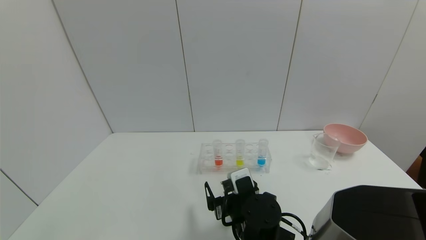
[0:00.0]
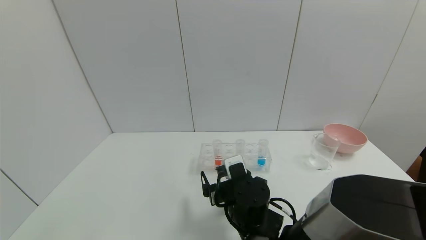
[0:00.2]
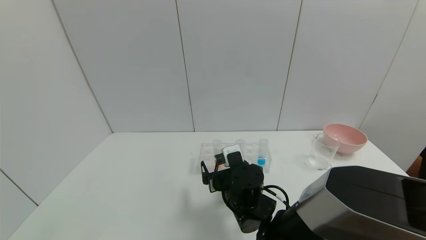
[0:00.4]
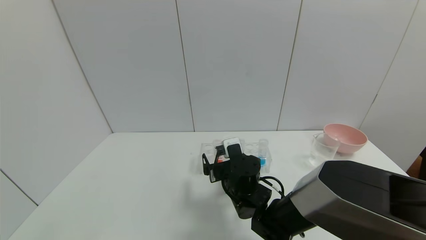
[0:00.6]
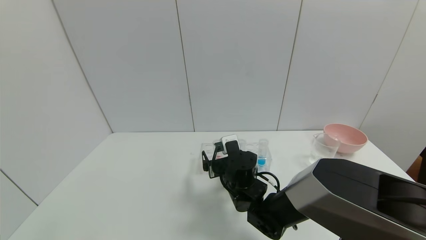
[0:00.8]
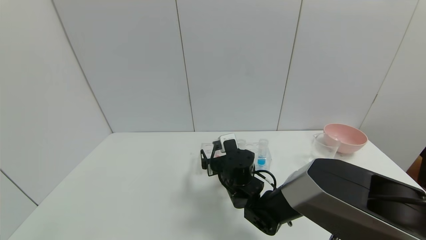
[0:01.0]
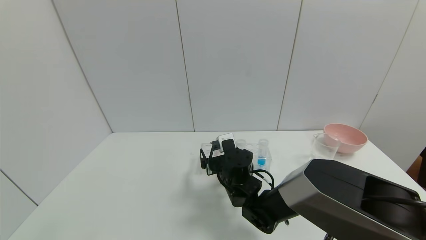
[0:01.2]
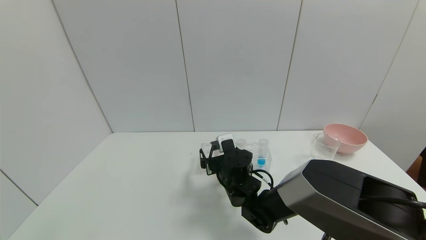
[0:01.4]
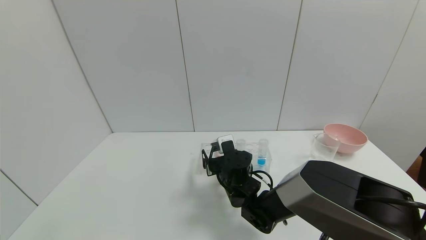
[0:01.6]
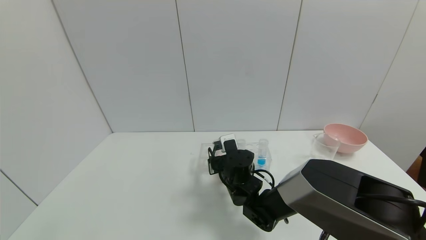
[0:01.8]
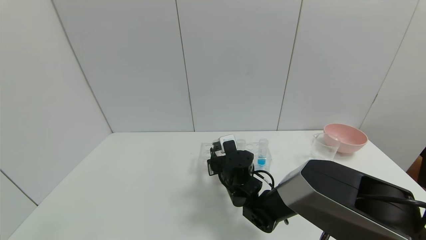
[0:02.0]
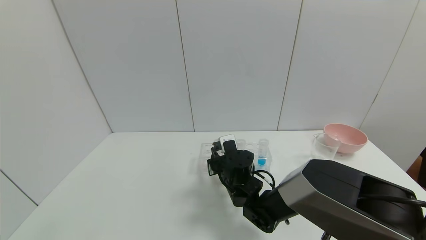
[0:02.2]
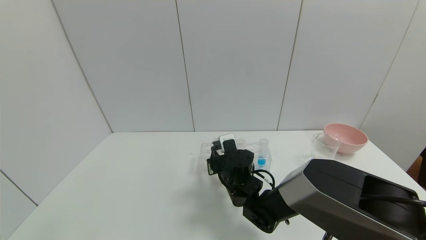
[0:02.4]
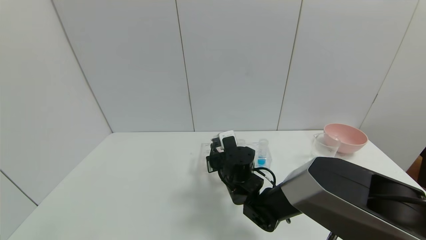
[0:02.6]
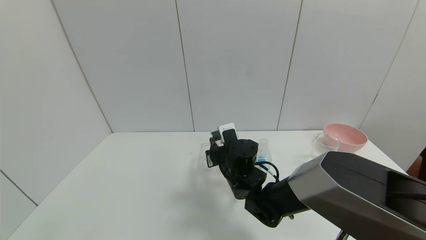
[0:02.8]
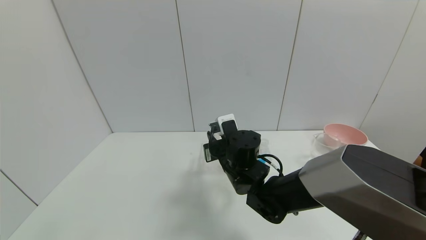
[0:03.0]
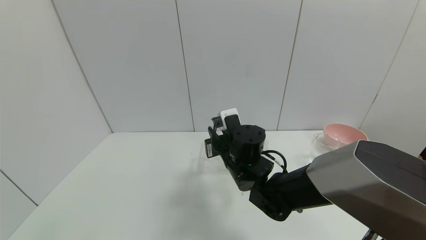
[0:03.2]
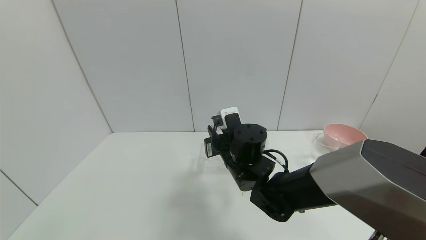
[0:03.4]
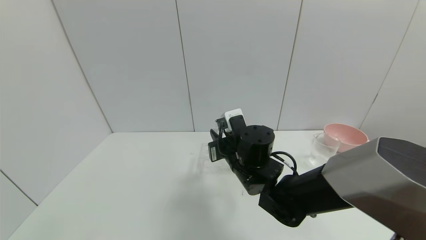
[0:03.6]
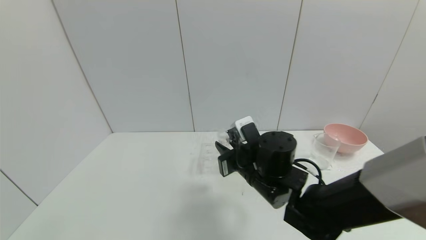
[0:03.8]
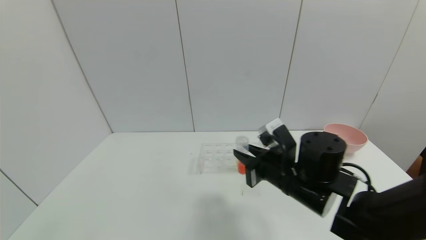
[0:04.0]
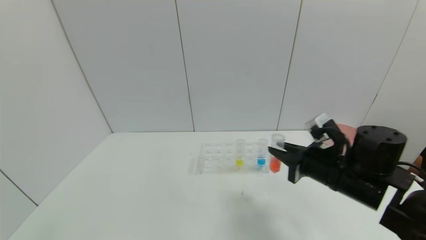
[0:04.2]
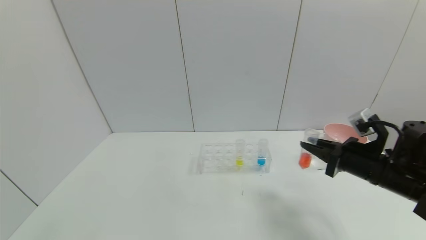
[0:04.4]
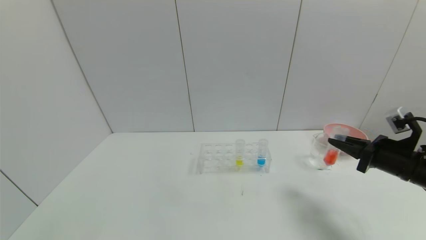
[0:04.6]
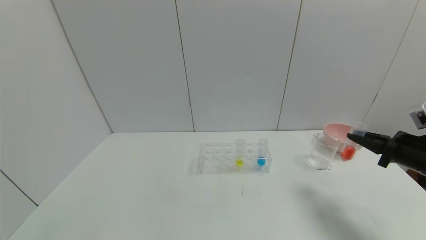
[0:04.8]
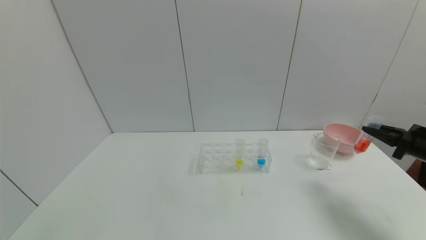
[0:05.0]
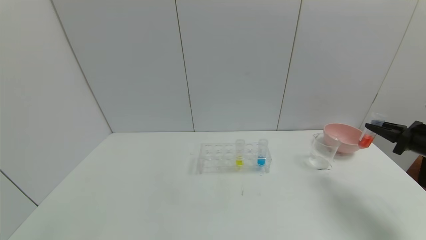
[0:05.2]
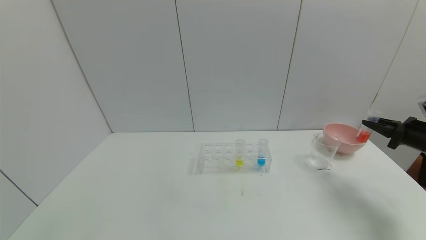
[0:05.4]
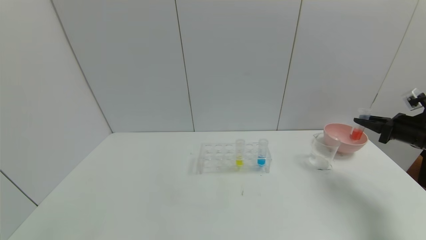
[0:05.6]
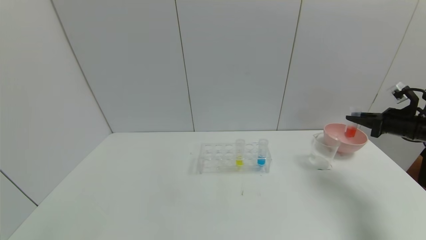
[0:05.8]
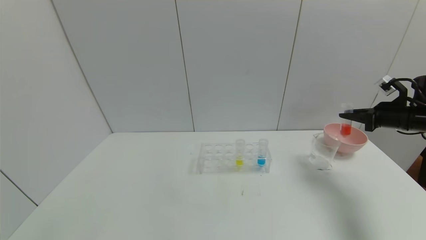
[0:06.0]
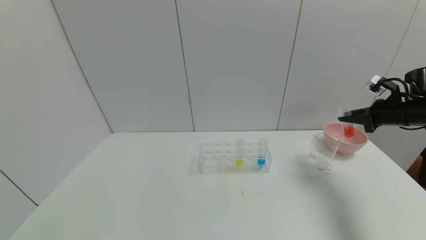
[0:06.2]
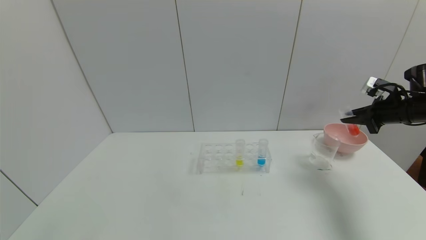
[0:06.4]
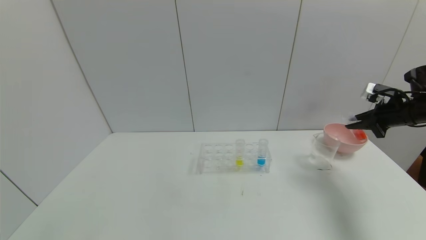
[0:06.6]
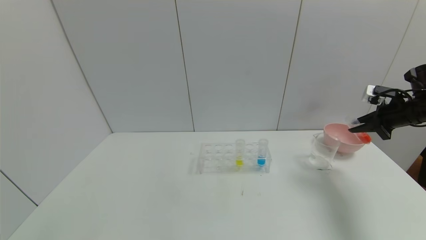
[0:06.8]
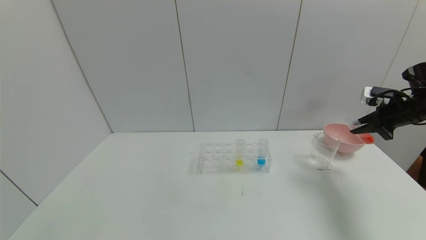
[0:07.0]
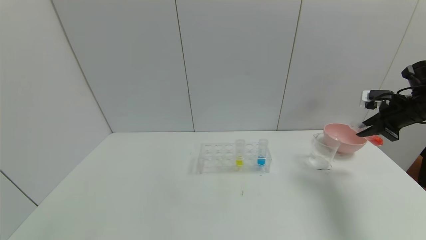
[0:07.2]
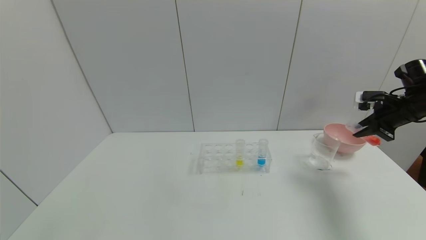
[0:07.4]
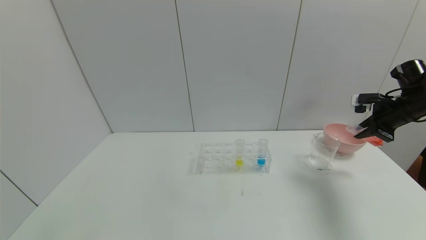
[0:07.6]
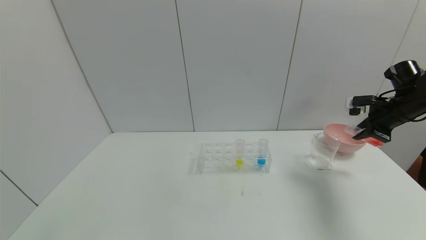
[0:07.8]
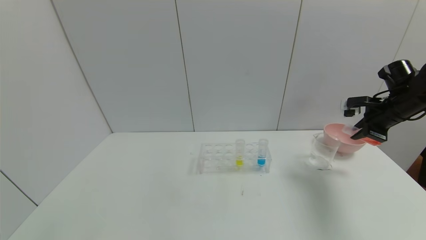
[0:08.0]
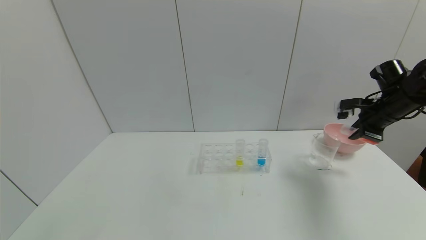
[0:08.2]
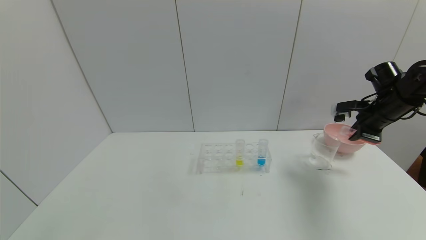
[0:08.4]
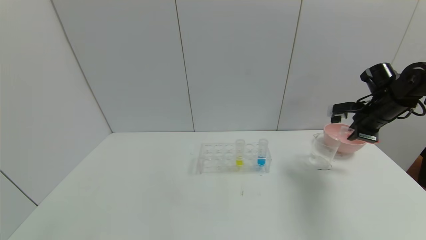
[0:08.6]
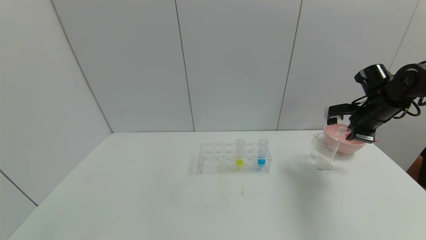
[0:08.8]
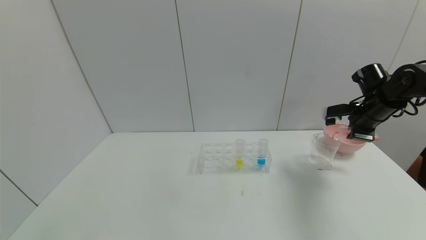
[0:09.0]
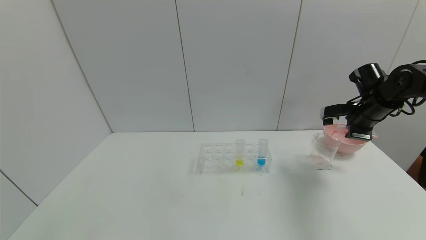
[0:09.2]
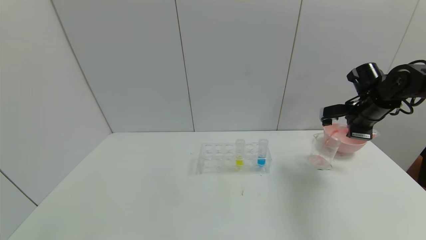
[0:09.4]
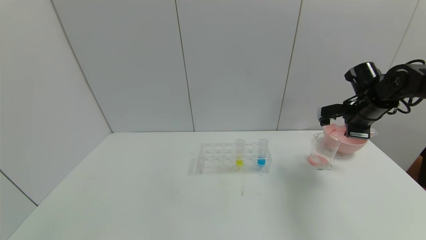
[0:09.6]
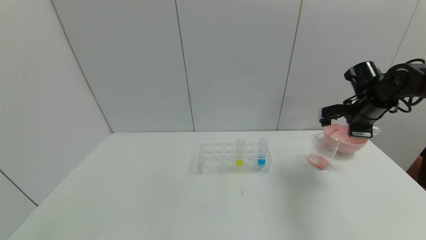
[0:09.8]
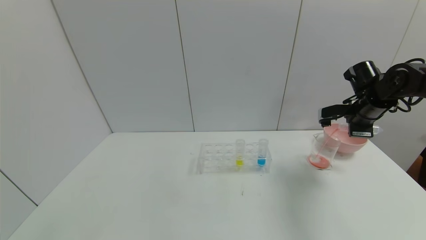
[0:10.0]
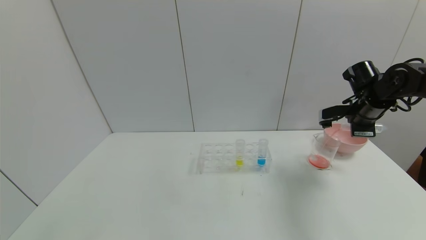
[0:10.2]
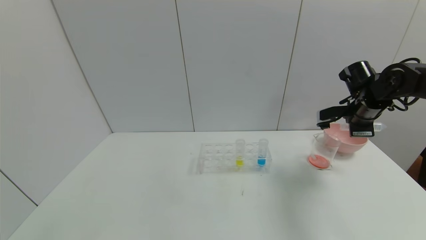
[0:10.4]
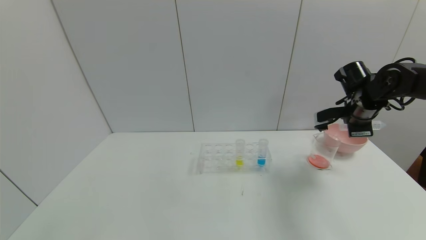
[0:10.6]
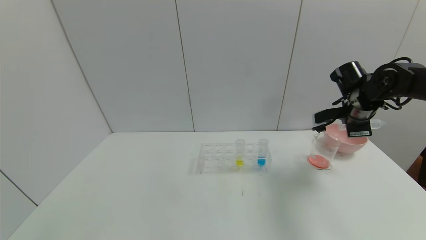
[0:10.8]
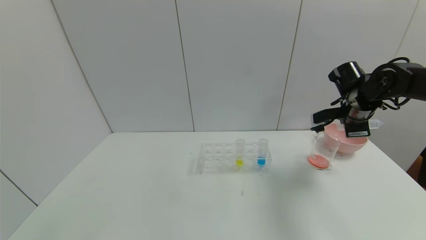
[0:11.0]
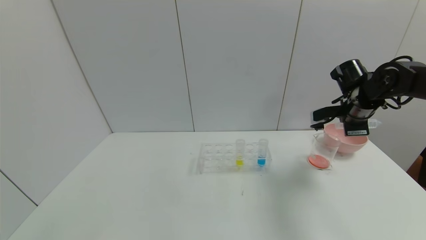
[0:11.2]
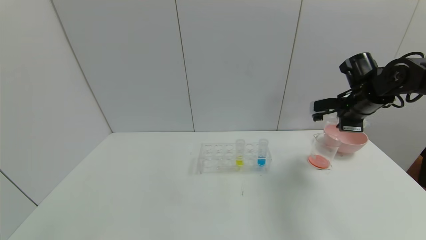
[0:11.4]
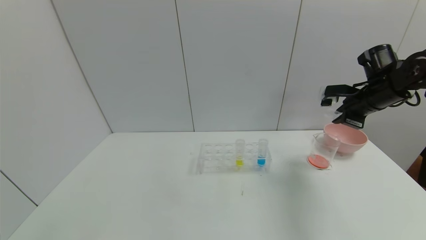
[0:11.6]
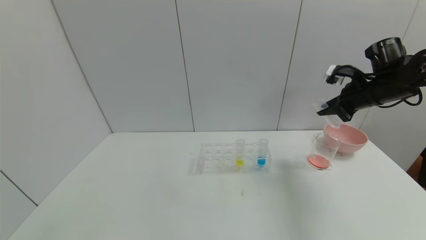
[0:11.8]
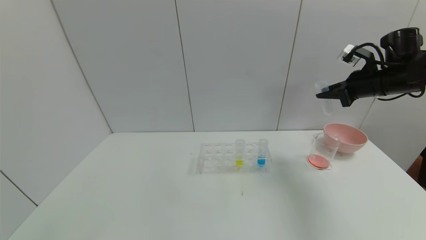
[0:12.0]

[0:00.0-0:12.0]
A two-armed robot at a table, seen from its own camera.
Task of the whole recording: pick up the test tube with red pigment and the test tube with blue pigment by grippers and pour them into the container.
Step, 0:00.0 to 0:05.8: Pick up the test tube containing the red reagent with right gripper.
Step, 0:06.0 to 0:11.6: Pour the red reagent into the graduated cylinder with right gripper.
0:00.0 to 0:01.6: The right gripper shifts about 10 cm forward.
0:01.6 to 0:03.0: The right gripper goes some 5 cm upward, and closes up.
0:03.0 to 0:04.4: The right gripper travels to the right by some 30 cm.
0:04.4 to 0:06.0: The right gripper is displaced to the right and forward by some 20 cm.
0:07.6 to 0:09.0: The right gripper shifts roughly 5 cm to the left.
0:09.0 to 0:10.4: The grippers move only a little.
0:10.4 to 0:12.0: The right gripper is displaced upward by roughly 5 cm.

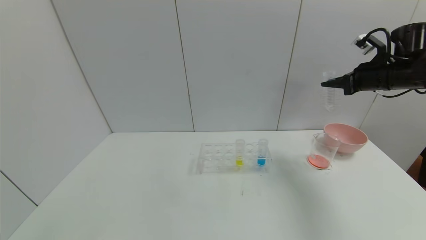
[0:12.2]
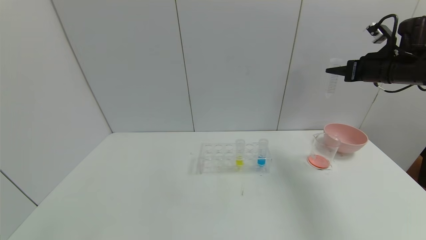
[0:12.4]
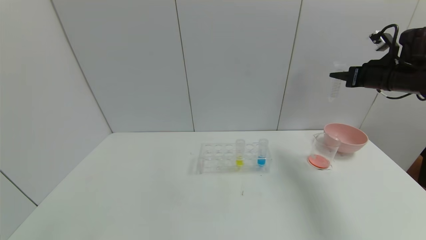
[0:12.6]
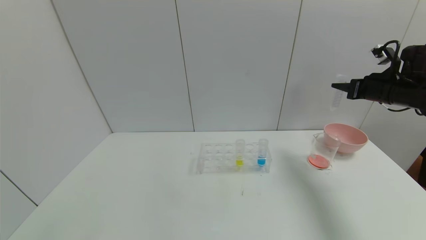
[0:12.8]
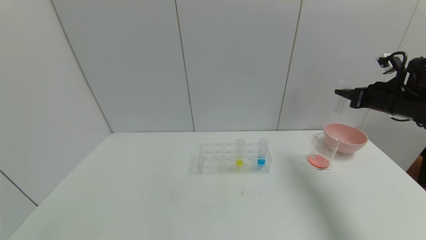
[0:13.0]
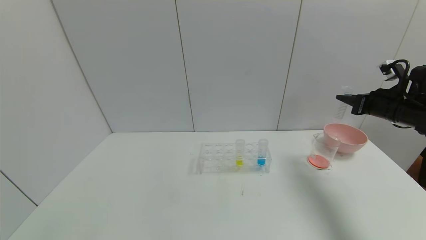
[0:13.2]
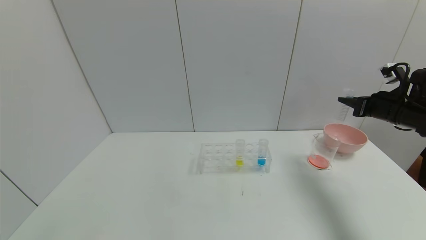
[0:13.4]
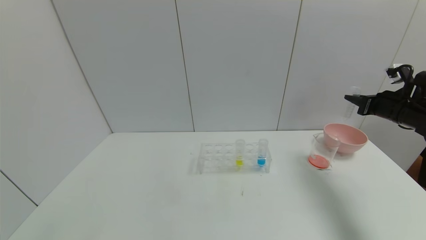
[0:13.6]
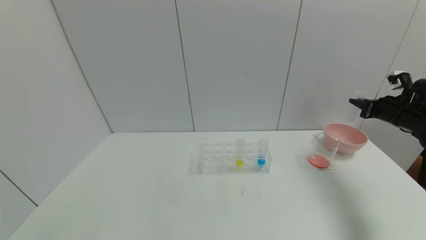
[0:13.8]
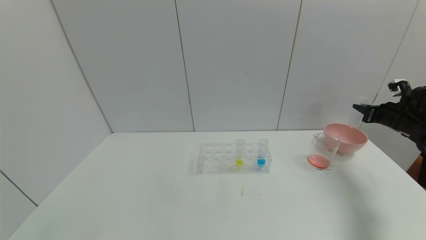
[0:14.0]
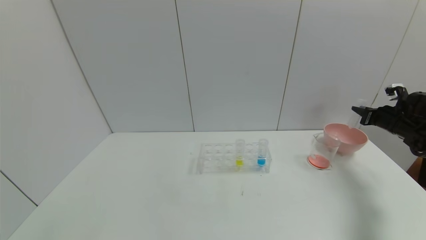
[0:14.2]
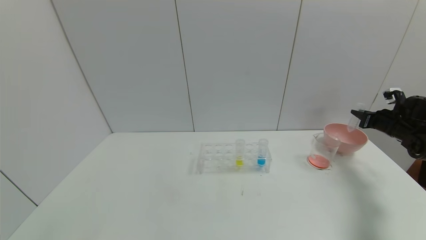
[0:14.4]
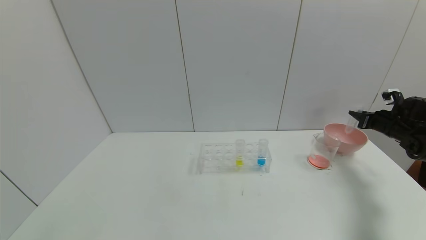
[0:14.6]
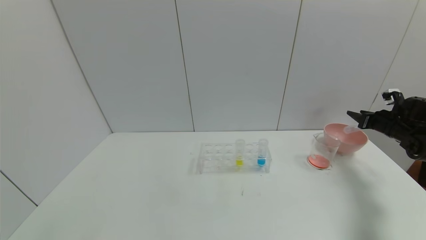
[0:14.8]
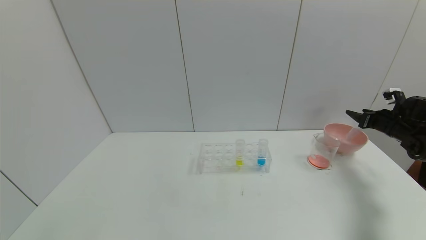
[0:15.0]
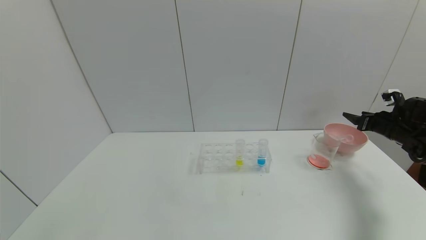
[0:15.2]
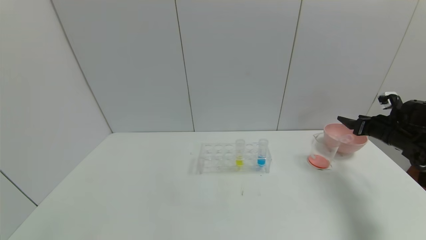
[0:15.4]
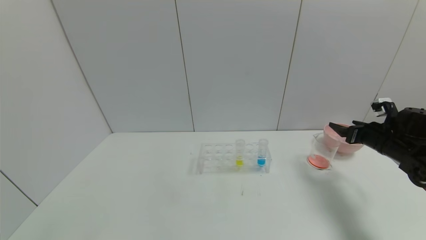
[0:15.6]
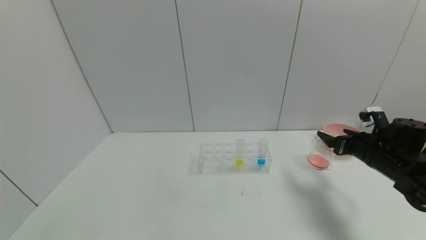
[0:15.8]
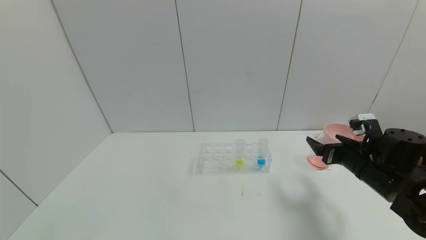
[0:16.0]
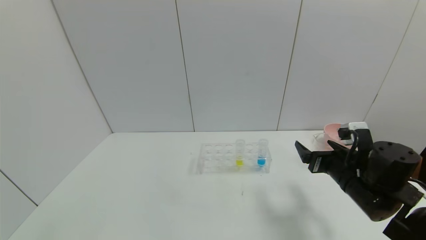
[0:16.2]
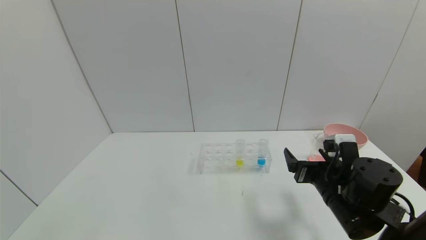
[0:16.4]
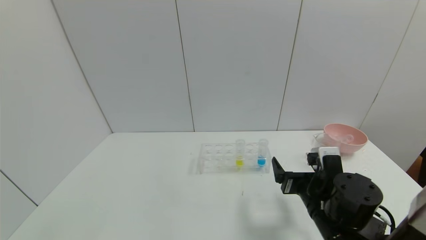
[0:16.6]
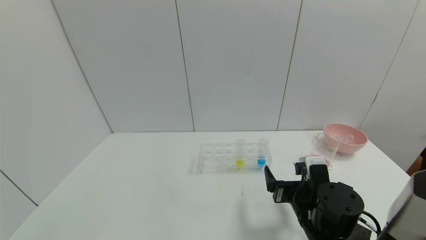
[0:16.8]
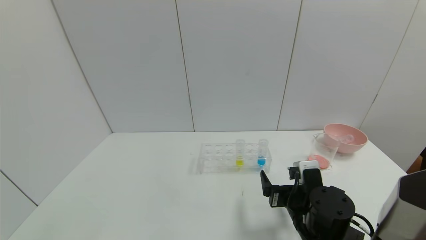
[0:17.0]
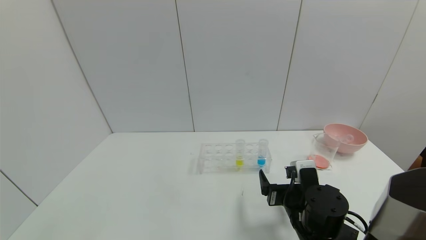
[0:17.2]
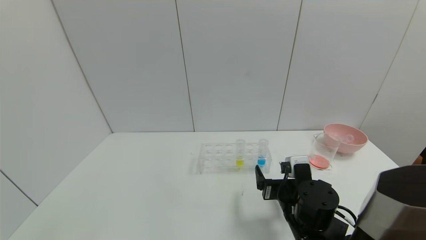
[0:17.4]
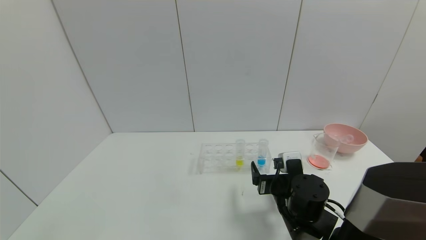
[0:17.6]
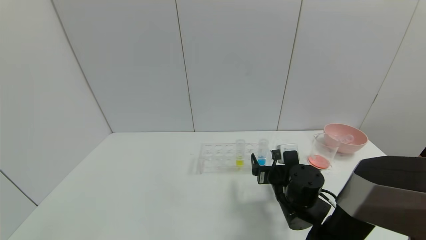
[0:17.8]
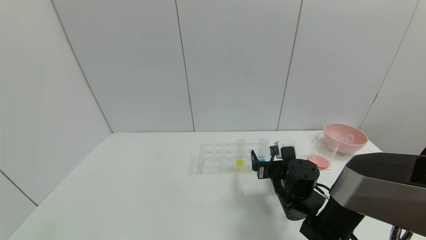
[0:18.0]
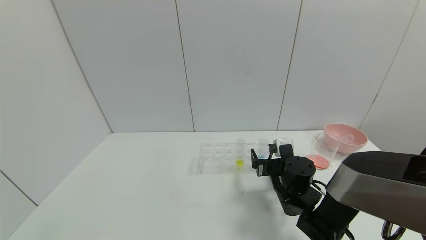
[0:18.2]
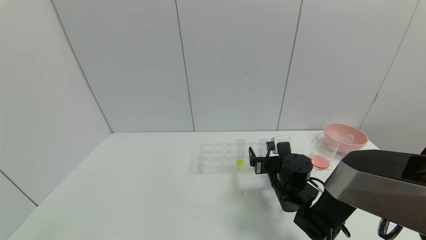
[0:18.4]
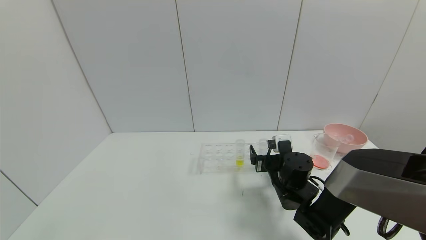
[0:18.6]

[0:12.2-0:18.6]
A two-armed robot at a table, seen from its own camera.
Task of the whole recording: pick up the test tube with red pigment and the test tube with blue pigment by grippers and pour them into the container.
Step, 0:12.2 to 0:15.4: Place the test tube into the bowl with right gripper.
0:12.2 to 0:13.8: The right gripper shifts about 15 cm downward and to the right.
0:13.8 to 0:15.4: The right gripper ends up approximately 5 cm from where it was, and opens its fingers.
0:15.4 to 0:17.0: The right gripper travels to the left and backward by some 35 cm.
0:17.0 to 0:18.6: The right gripper travels forward by some 10 cm.
